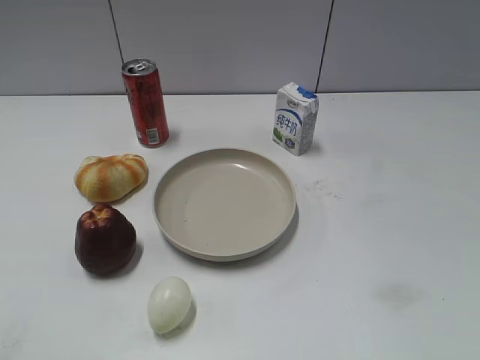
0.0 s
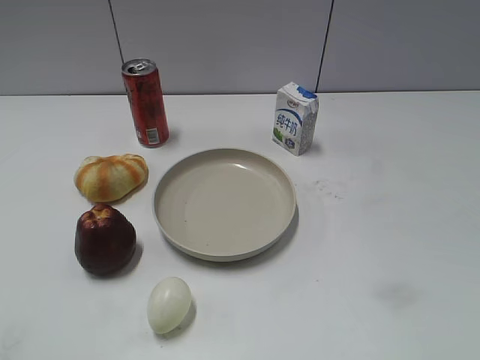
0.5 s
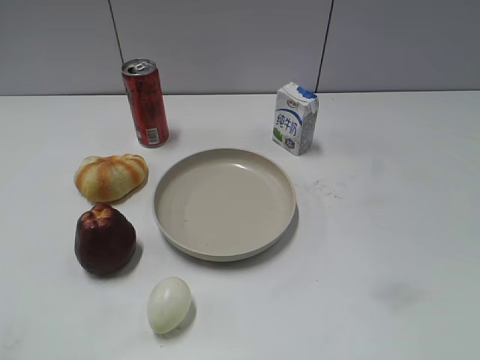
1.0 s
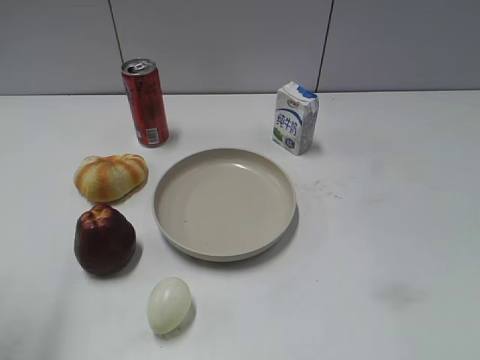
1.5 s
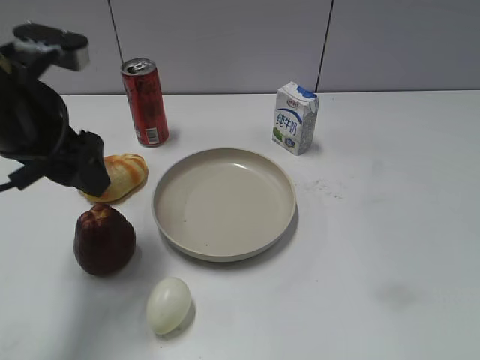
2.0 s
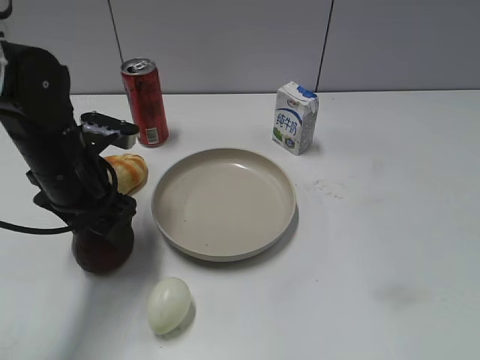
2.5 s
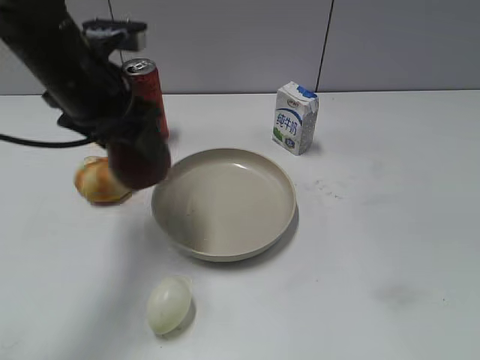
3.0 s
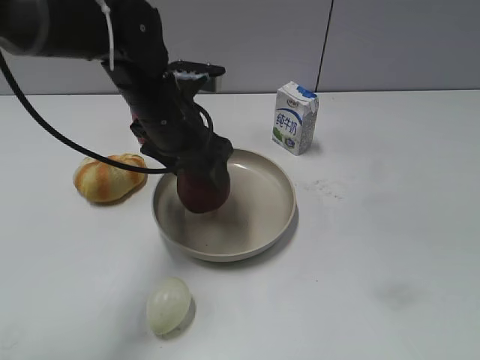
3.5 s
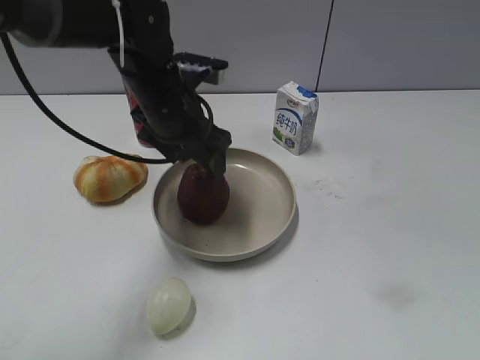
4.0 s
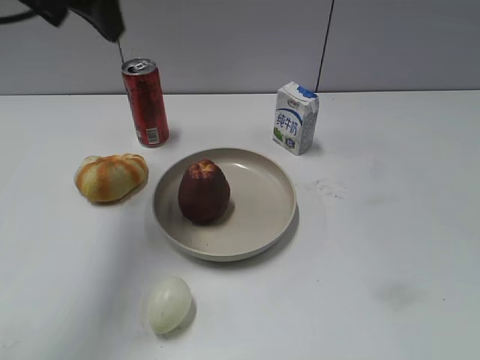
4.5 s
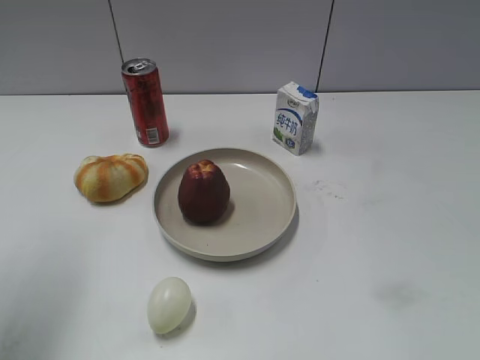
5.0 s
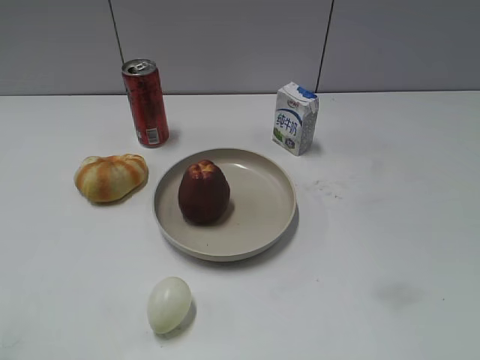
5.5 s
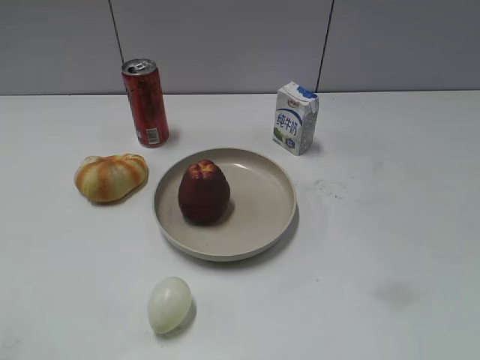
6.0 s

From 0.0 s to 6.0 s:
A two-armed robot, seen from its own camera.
Step, from 0.0 s to 2.5 s: Grasp the apple with left gripper.
Step, from 3.0 s to 4.0 s: Place the apple on the plate with left gripper.
From 2.0 s to 4.0 s: The left gripper is displaced to the right, forward and downward by roughly 15 cm, and closes and opens again.
From 4.0 s to 6.0 s: The left gripper heads backward and to the left, covering roughly 40 cm, and closes up.
